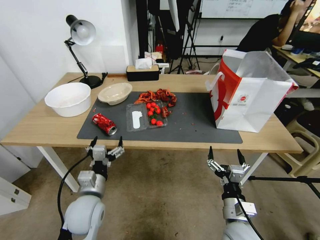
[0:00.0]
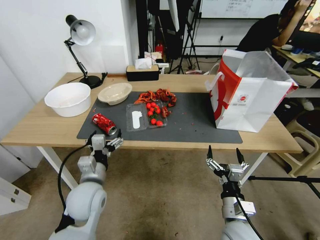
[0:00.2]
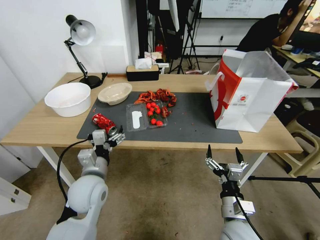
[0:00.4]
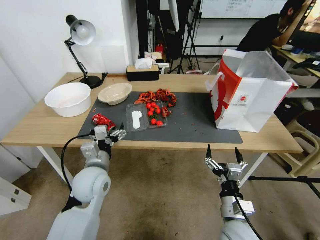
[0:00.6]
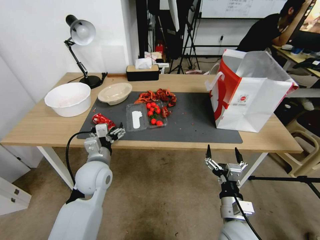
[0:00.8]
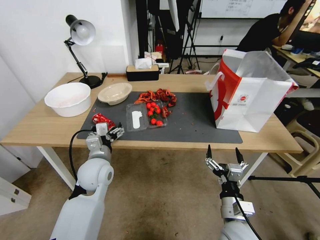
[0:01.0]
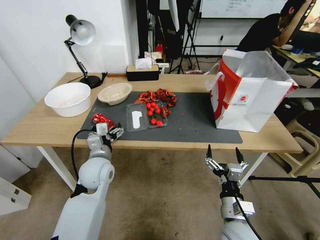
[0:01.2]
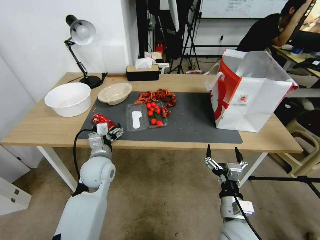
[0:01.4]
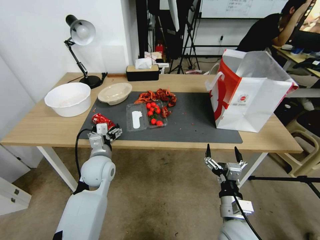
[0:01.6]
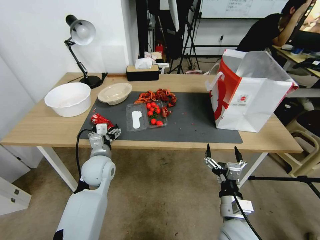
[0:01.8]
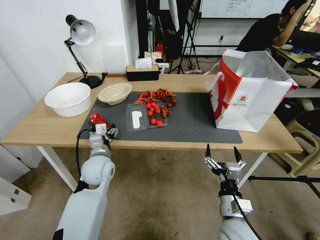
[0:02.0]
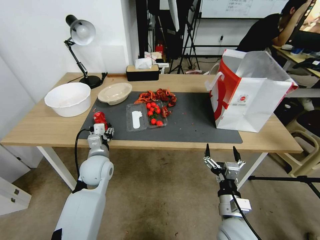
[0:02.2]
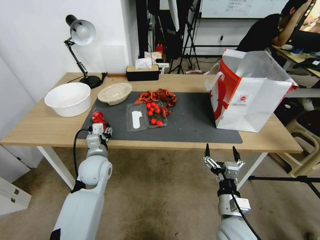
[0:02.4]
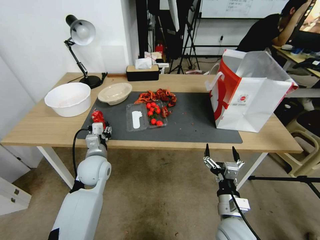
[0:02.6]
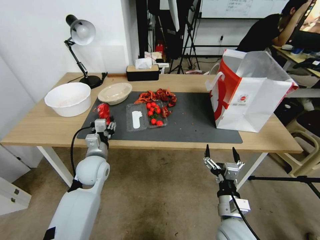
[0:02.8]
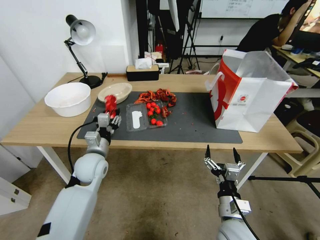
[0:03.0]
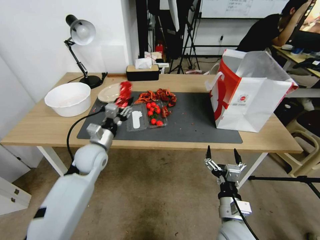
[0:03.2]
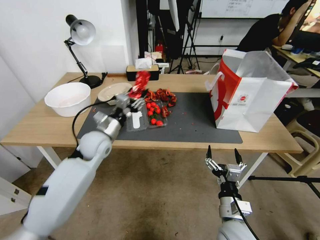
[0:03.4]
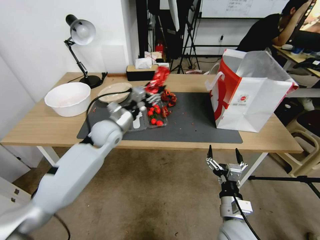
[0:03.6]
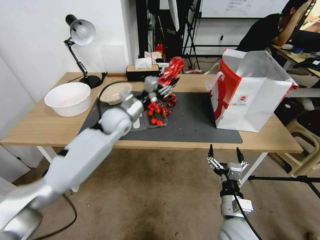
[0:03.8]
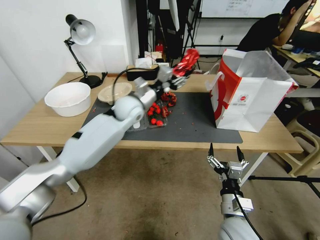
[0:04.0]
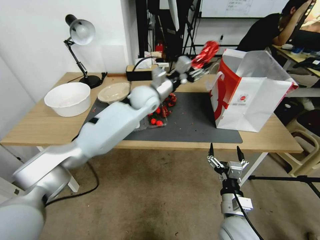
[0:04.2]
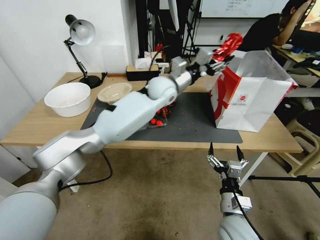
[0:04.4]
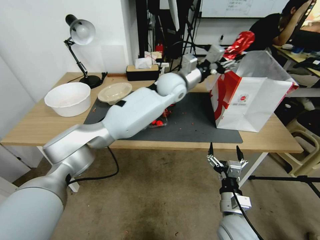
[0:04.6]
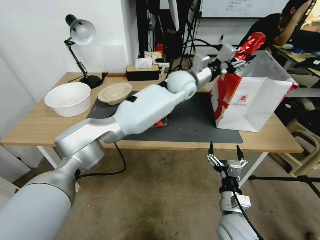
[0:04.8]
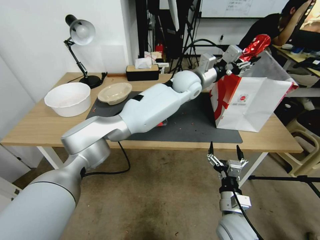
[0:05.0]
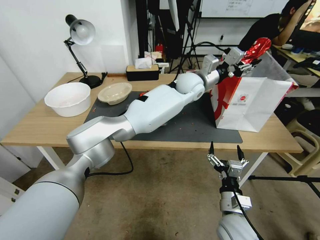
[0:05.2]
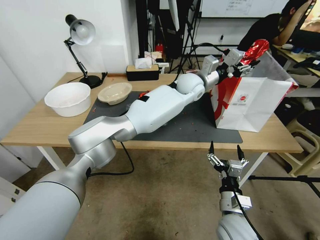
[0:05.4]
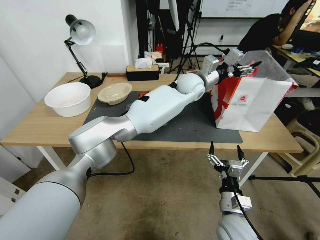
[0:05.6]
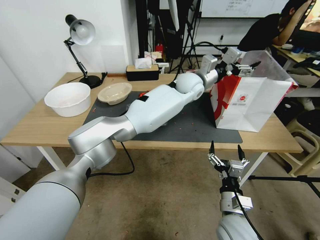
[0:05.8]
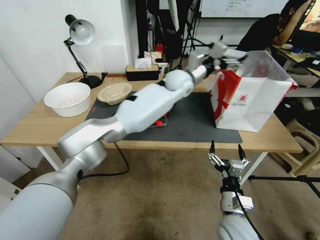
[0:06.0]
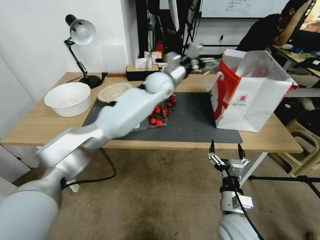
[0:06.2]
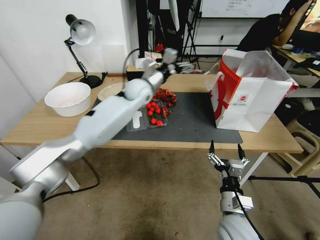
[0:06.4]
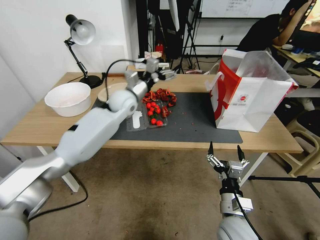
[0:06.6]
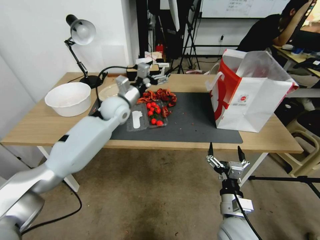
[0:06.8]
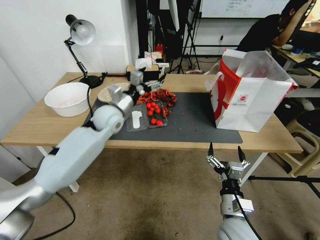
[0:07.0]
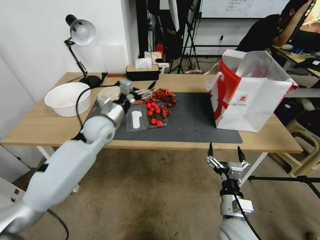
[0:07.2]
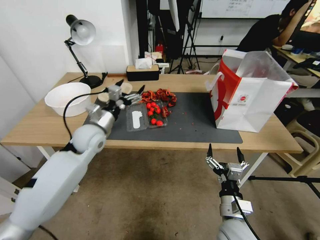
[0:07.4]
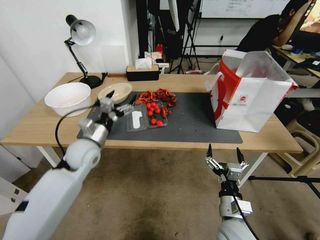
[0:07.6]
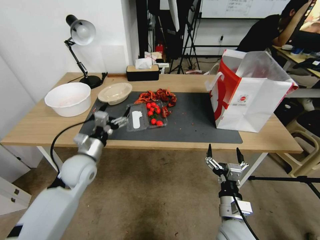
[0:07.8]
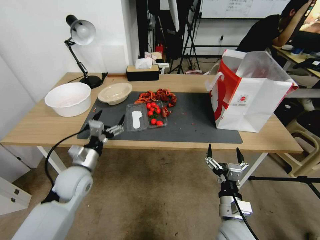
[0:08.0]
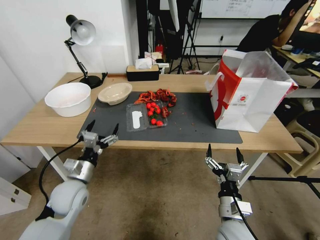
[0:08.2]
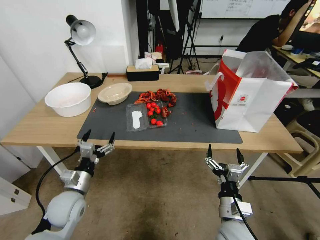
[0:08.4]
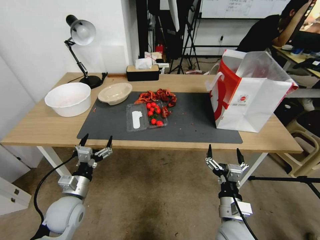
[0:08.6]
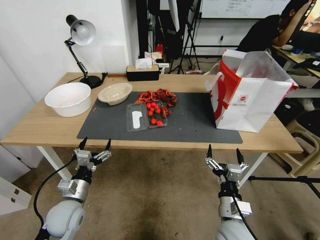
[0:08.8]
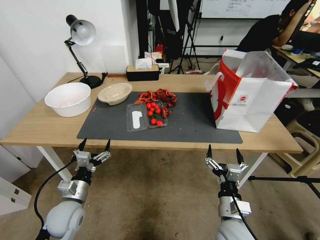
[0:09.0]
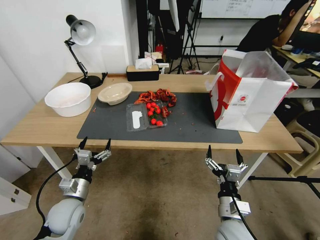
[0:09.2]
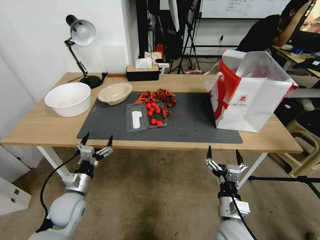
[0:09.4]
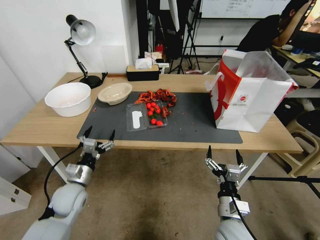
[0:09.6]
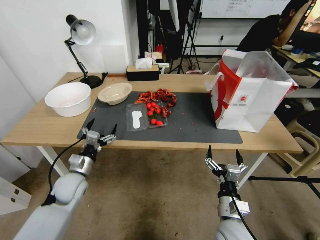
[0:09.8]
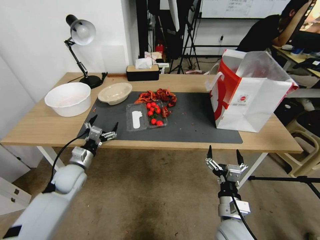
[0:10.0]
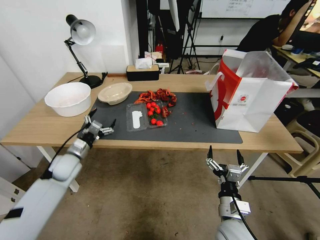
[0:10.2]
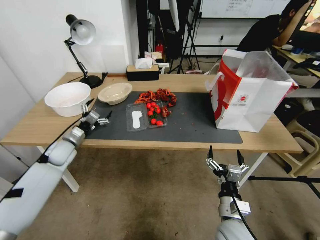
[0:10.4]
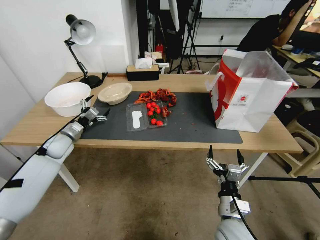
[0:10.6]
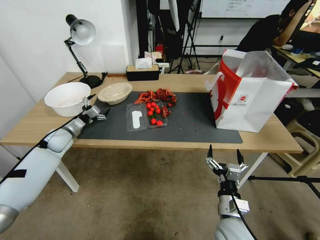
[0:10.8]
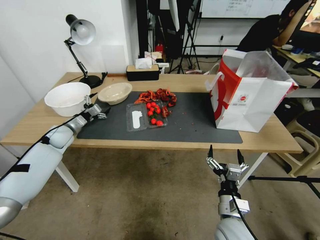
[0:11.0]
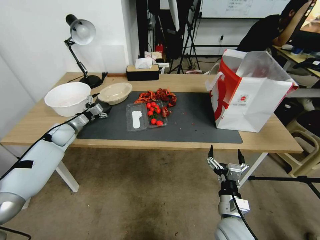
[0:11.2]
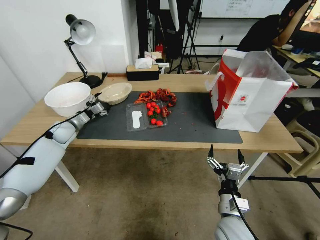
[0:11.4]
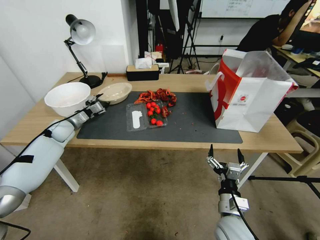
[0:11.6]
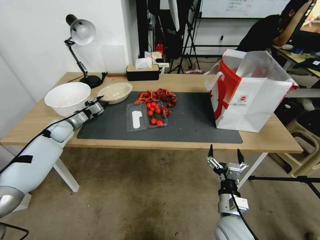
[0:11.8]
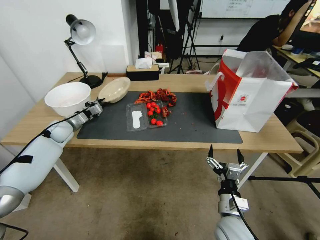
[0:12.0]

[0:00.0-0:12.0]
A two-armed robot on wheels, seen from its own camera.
0:00.0 to 0:01.6: The left gripper is displaced forward and upward by roughly 15 cm.
0:01.6 to 0:03.0: The left gripper closes its fingers.
0:03.0 to 0:04.4: The left gripper travels forward, to the right and upward by about 30 cm.
0:04.4 to 0:06.0: The left gripper travels to the right by some 10 cm, and opens its fingers.
0:06.0 to 0:07.6: The left gripper is displaced to the left, backward and downward by about 40 cm.
0:07.6 to 0:09.0: The left gripper heads backward and downward, covering roughly 20 cm.
0:09.0 to 0:10.4: The left gripper travels forward and to the left by some 20 cm.
0:10.4 to 0:12.0: The left gripper goes some 15 cm forward and to the left, and closes.

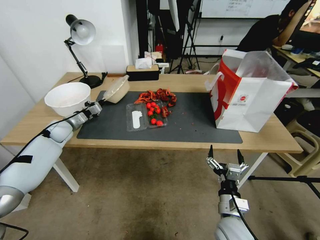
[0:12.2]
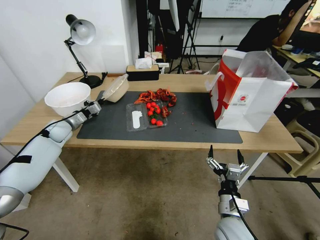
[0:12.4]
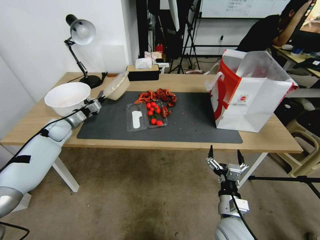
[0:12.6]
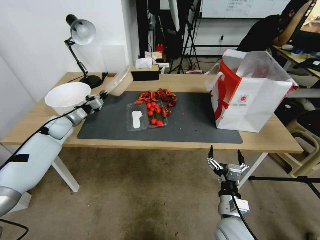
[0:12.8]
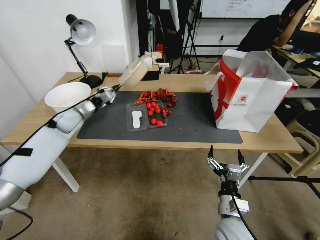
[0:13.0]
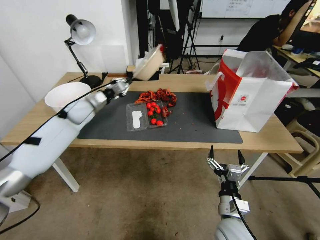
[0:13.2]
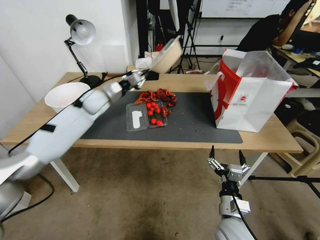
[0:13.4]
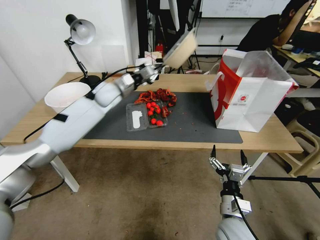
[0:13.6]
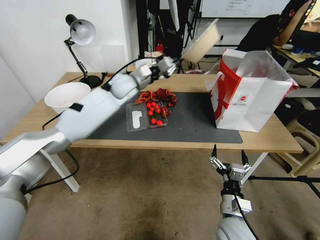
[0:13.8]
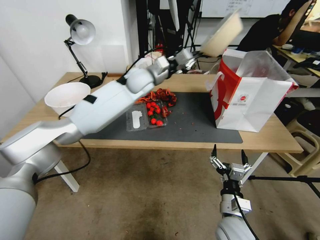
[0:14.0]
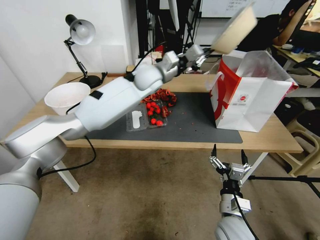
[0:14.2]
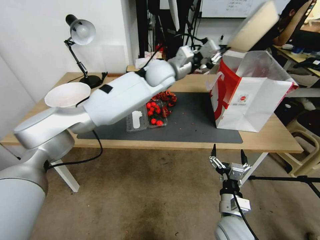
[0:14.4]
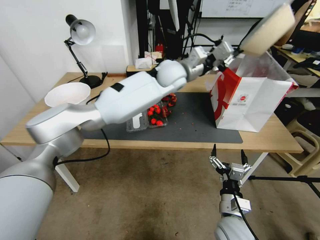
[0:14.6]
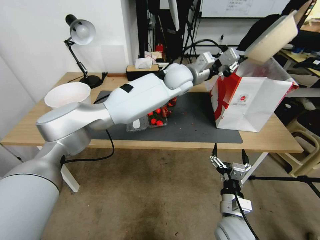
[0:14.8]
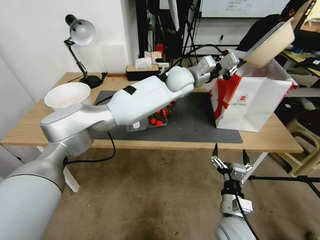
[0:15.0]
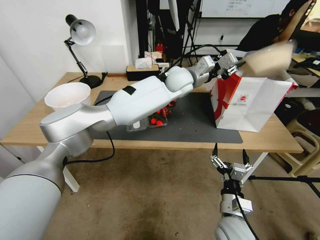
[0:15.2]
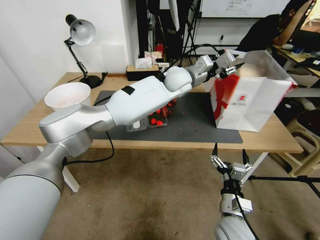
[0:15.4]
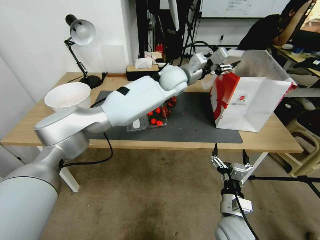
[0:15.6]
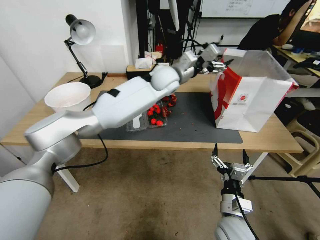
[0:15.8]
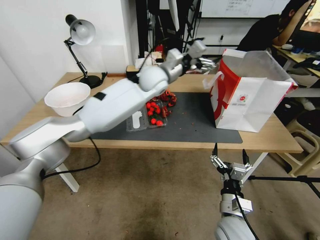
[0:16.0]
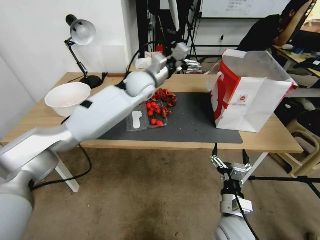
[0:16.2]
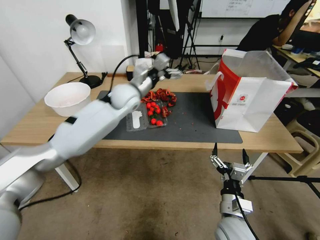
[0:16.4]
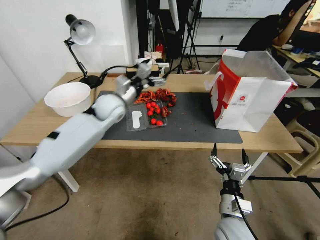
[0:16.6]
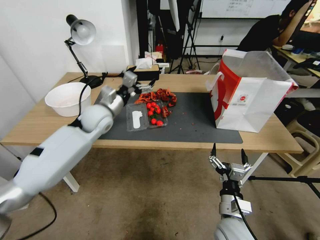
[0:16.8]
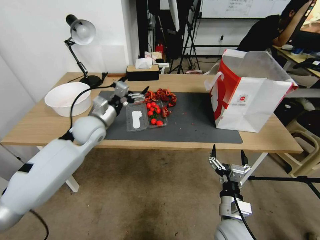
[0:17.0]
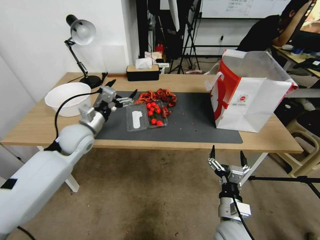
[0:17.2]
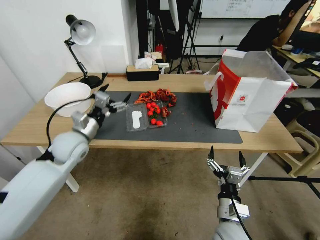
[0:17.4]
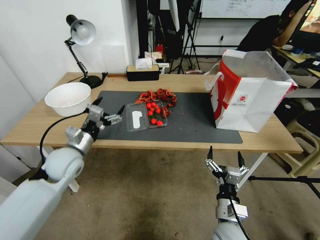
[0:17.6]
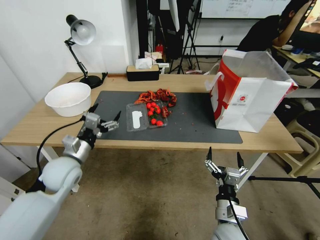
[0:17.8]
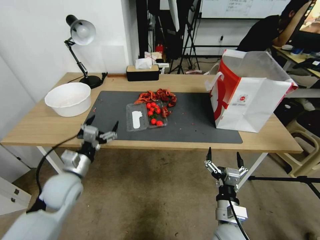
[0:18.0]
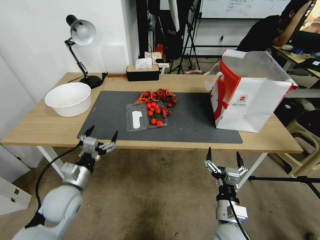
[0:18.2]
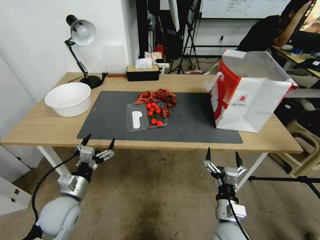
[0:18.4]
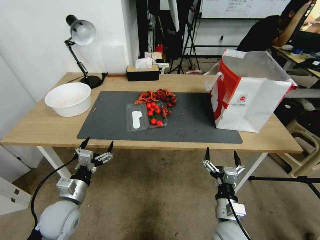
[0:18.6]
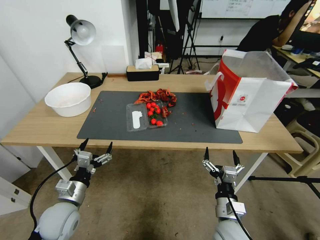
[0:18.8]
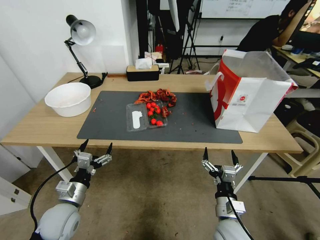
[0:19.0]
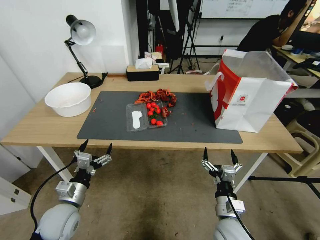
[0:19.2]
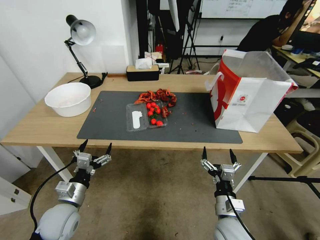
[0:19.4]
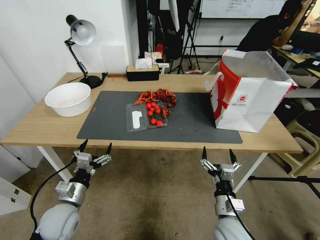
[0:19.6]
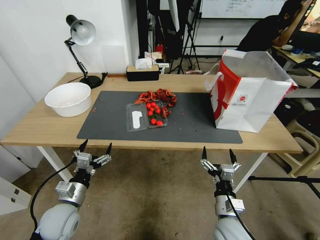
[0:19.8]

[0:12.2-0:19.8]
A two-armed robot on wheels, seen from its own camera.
0:12.2 to 0:13.8: The left gripper goes some 35 cm to the right and upward.
0:13.8 to 0:15.2: The left gripper shifts some 20 cm to the right.
0:15.2 to 0:16.8: The left gripper travels to the left by roughly 25 cm, and opens.
0:16.8 to 0:18.2: The left gripper heads backward, downward and to the left, covering some 20 cm.
0:18.2 to 0:19.8: The left gripper travels backward and downward by approximately 10 cm.

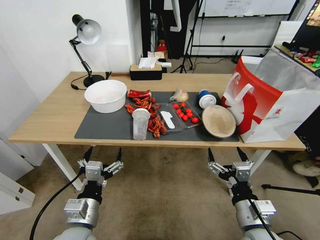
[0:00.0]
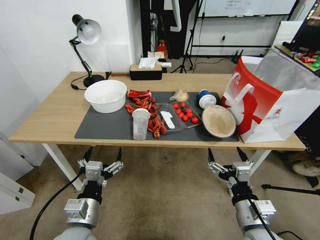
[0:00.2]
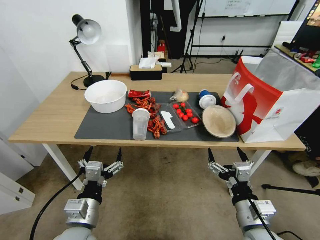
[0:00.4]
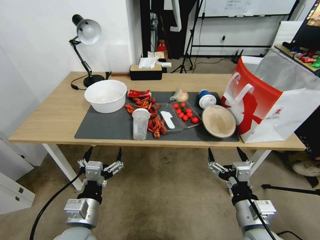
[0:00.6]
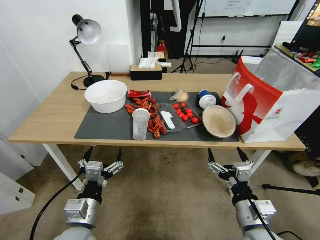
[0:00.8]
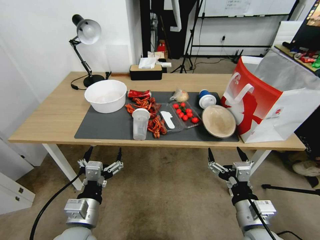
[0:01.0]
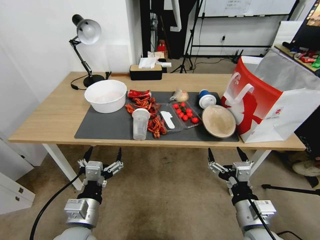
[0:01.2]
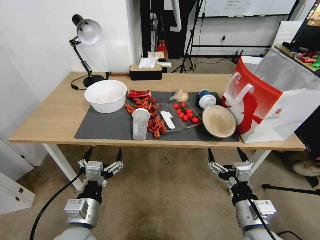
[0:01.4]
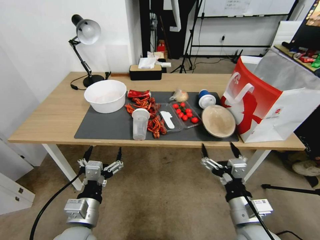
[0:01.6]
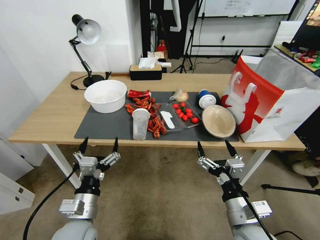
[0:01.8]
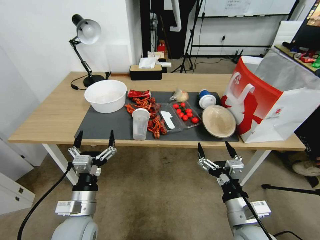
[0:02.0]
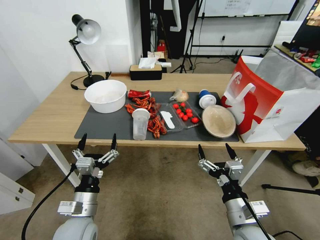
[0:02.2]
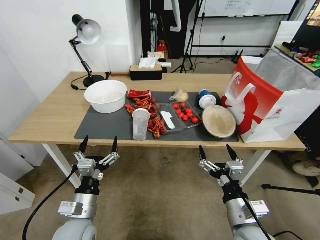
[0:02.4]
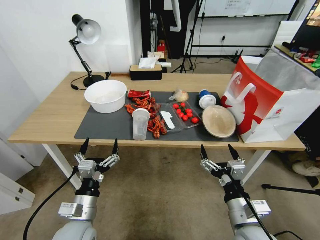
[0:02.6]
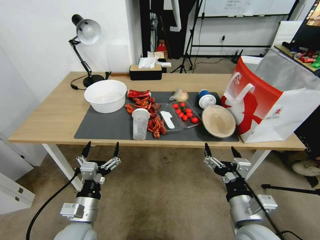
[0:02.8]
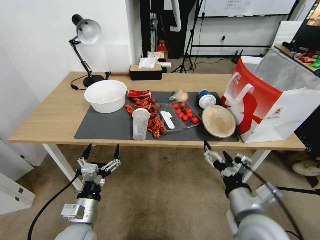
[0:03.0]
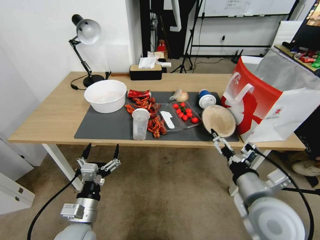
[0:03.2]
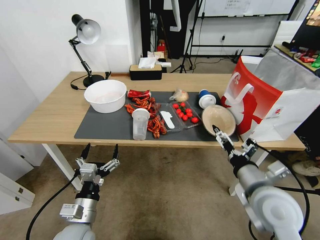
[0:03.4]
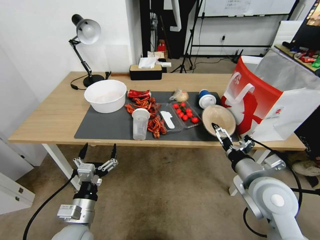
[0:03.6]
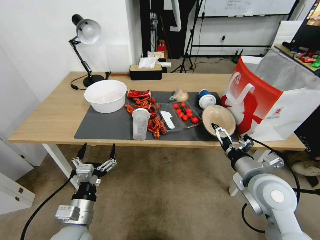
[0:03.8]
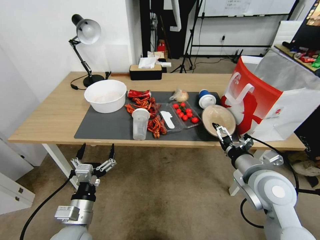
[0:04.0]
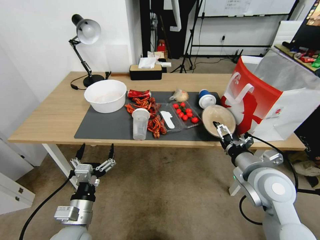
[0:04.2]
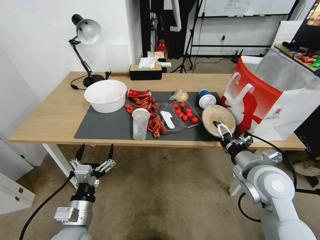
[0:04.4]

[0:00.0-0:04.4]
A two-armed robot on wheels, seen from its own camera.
0:01.4 to 0:03.0: The left gripper ends up roughly 5 cm from where it was.
0:03.0 to 0:04.4: The right gripper is displaced forward and to the right by approximately 10 cm.
